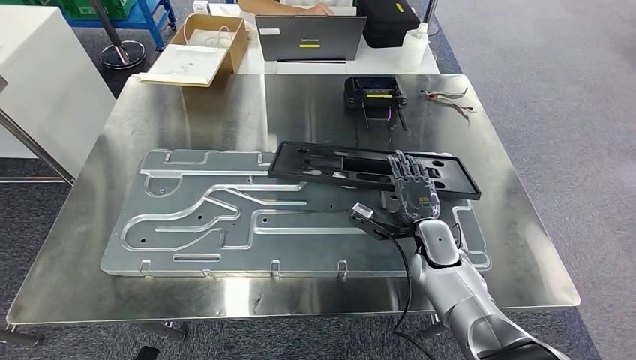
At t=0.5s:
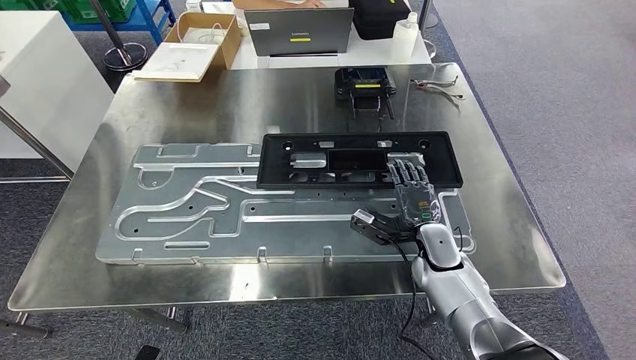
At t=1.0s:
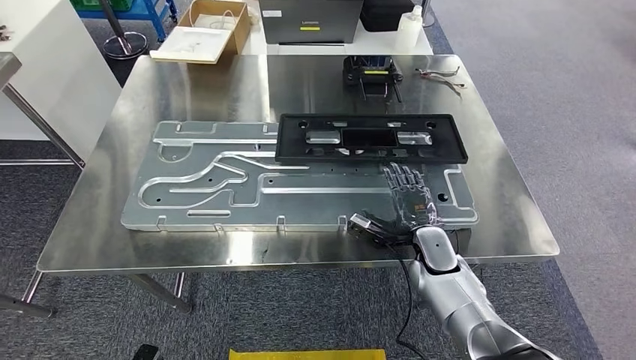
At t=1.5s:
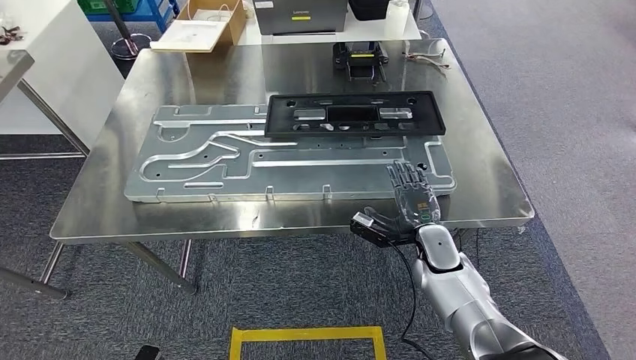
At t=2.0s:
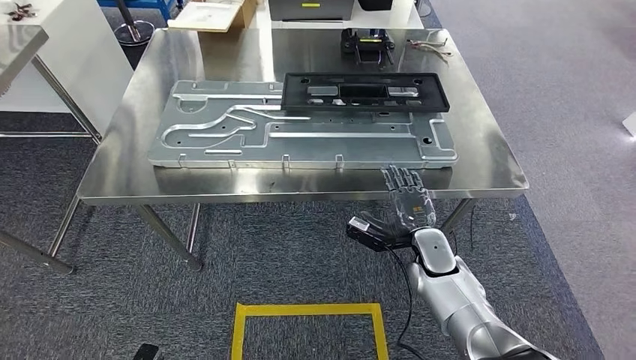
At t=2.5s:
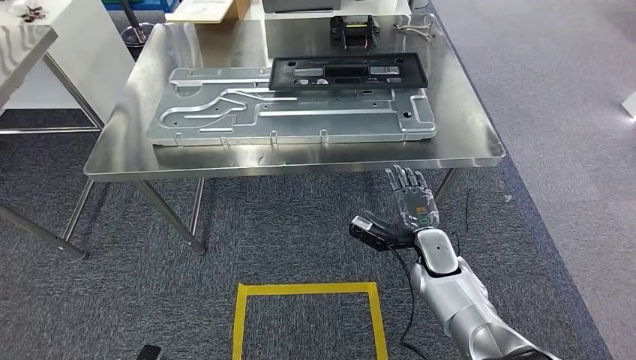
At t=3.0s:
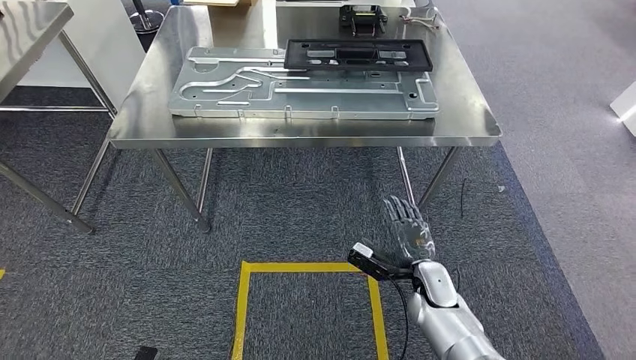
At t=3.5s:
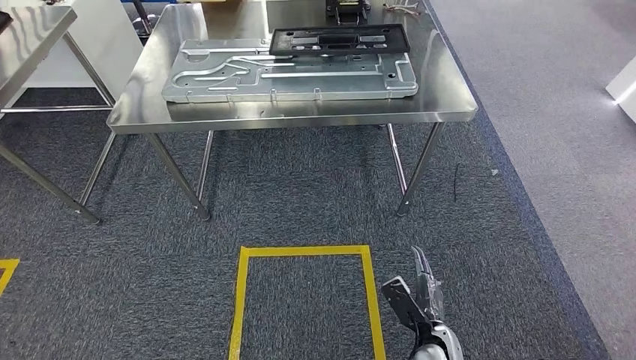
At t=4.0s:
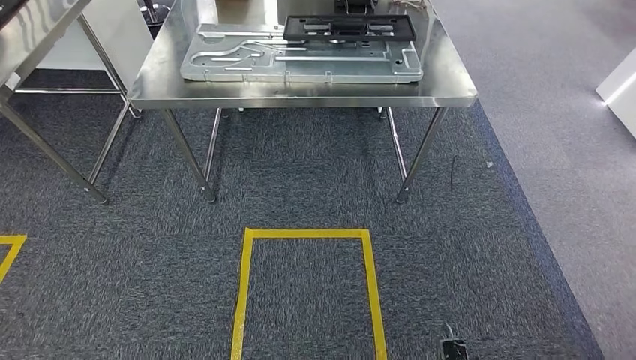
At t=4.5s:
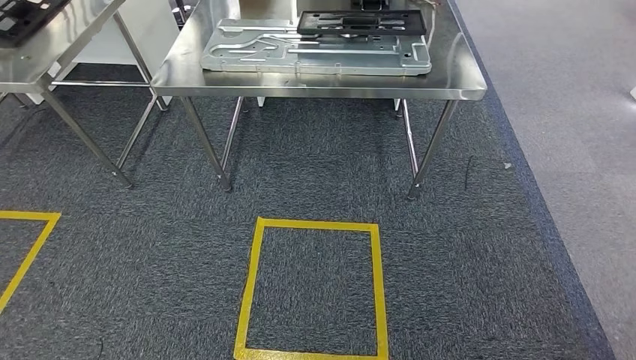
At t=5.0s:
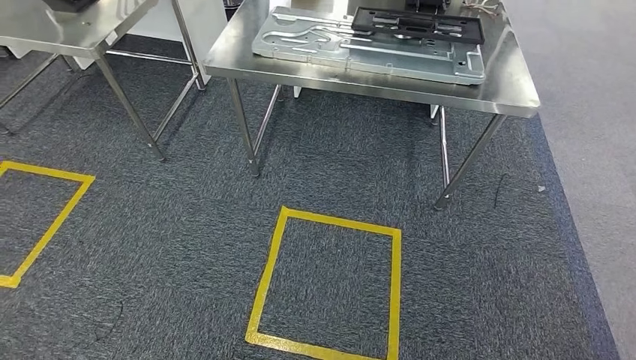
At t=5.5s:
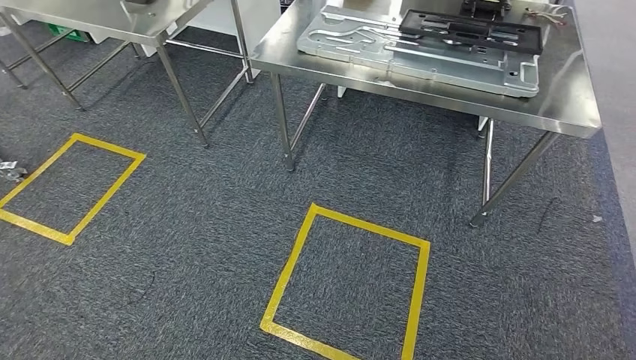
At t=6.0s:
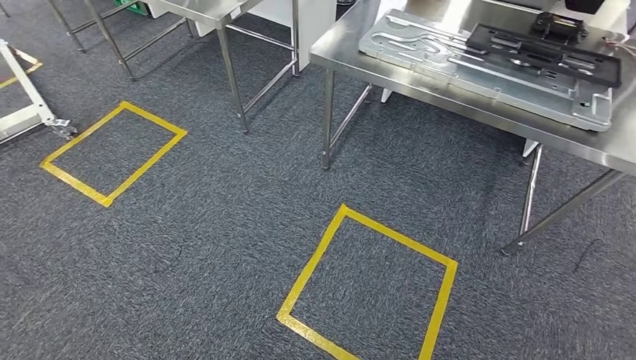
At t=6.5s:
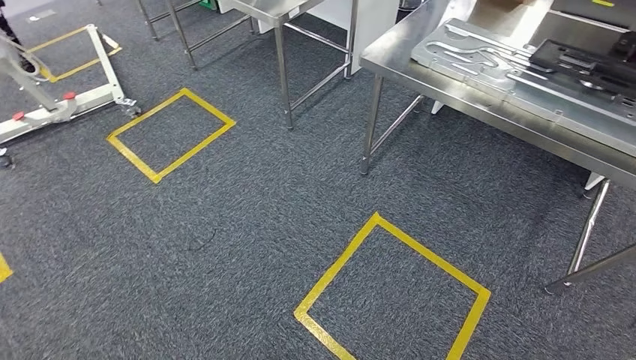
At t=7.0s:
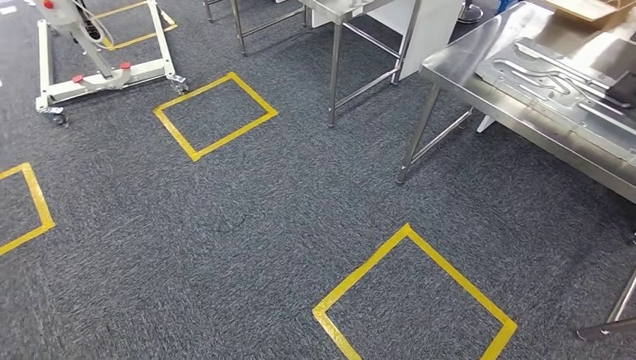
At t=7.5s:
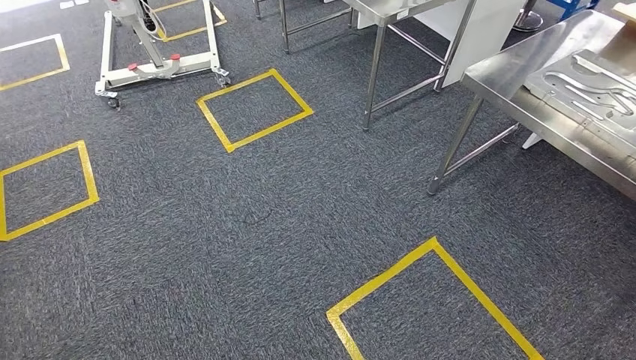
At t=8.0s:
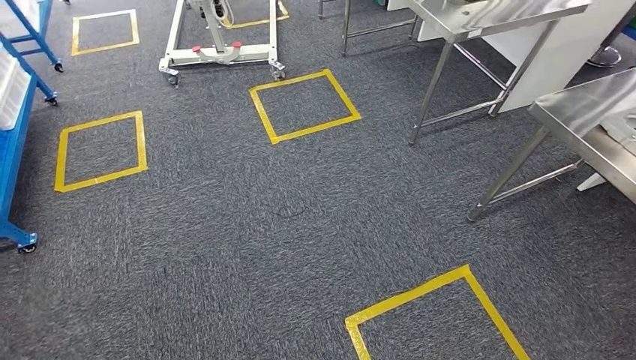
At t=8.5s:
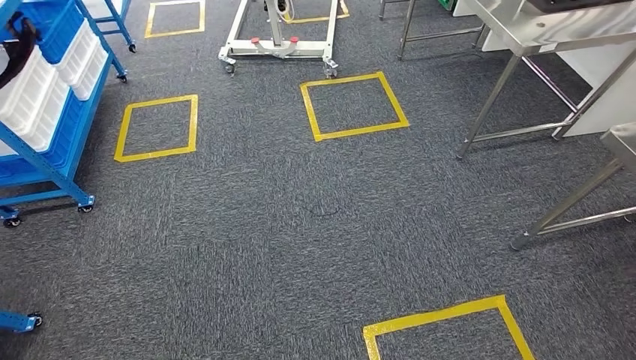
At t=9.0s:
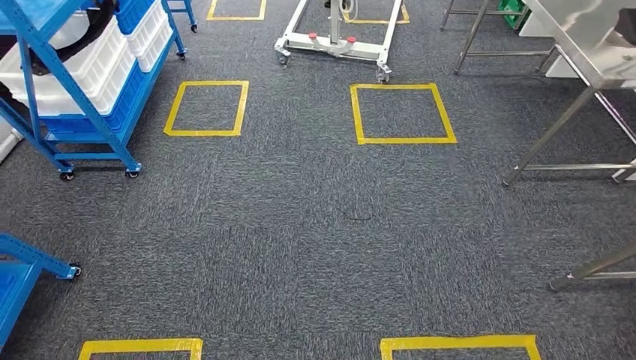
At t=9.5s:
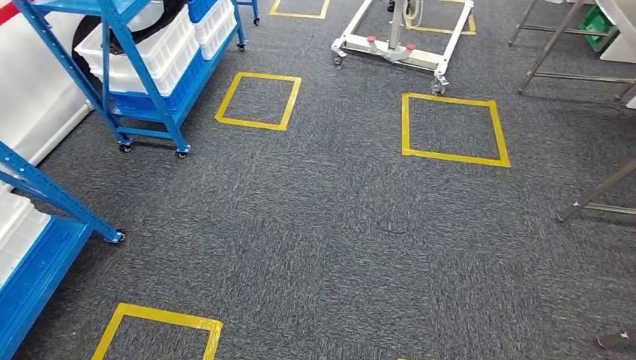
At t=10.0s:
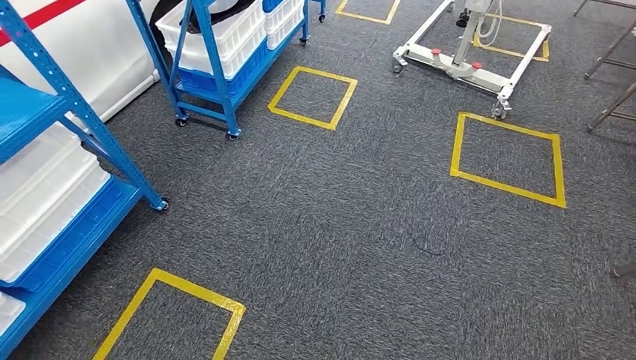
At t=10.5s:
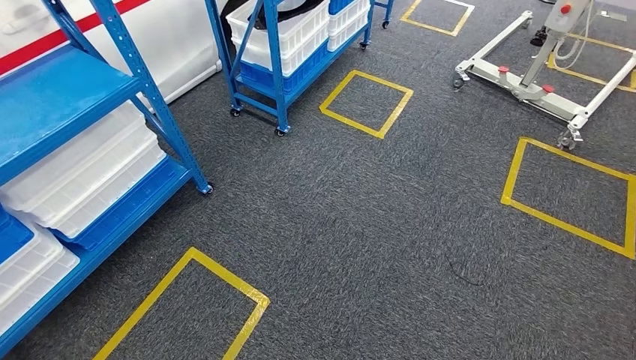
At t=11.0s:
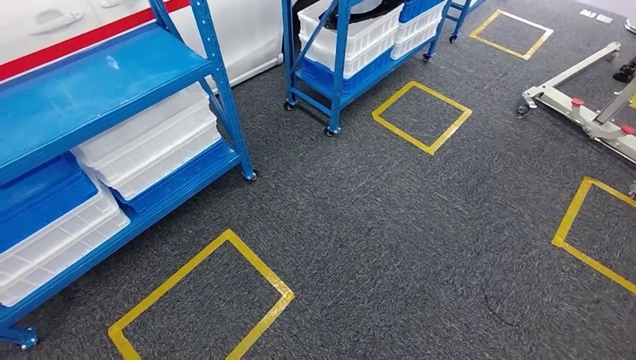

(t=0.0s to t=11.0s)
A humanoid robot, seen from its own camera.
Step, t=0.0s - t=3.0s: Insert the large material into the corresponding slot on the workbench.

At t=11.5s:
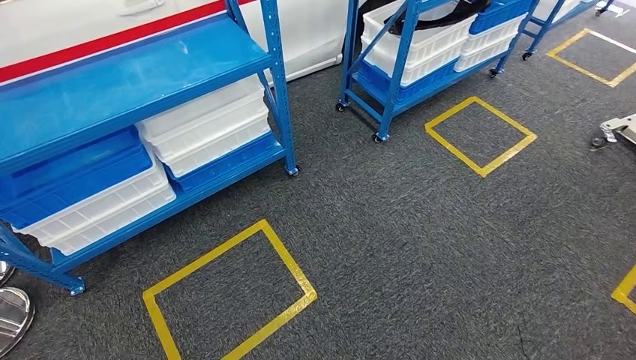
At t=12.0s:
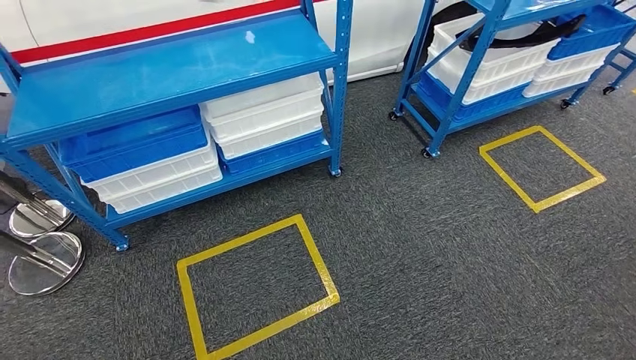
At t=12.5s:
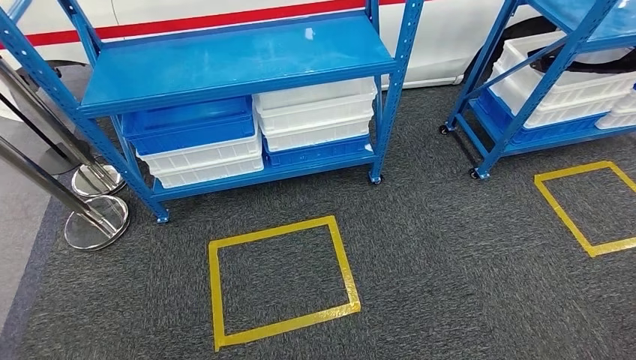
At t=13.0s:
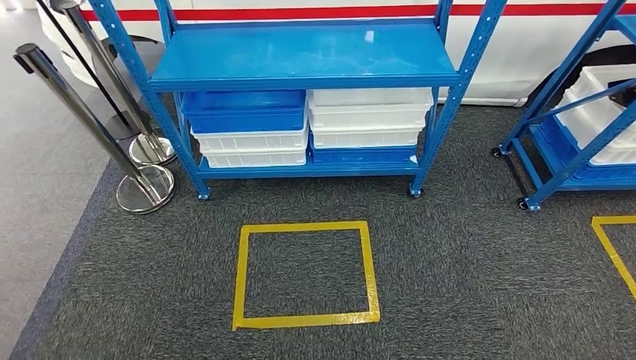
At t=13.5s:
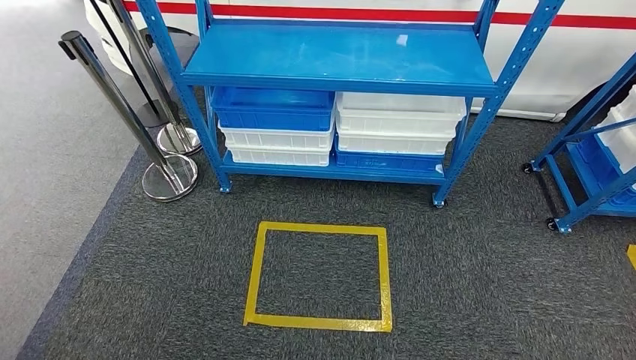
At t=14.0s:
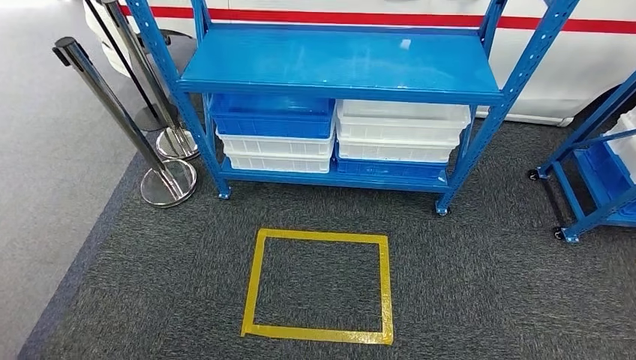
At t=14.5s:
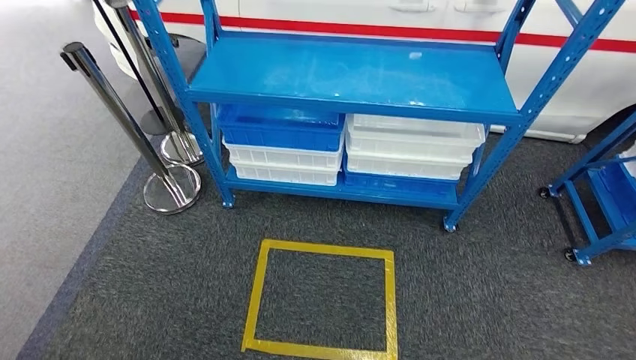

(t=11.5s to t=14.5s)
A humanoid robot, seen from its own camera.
Step, t=11.5s - t=14.5s: Move to the initial position of the shelf.
